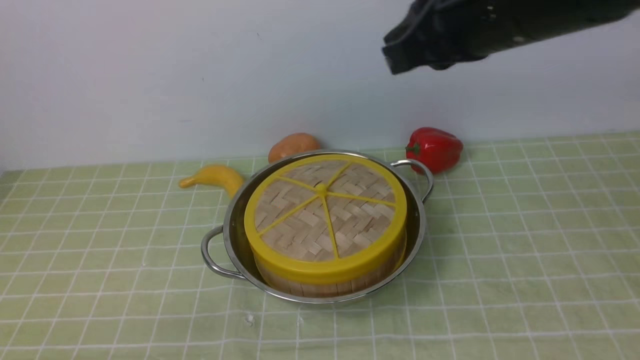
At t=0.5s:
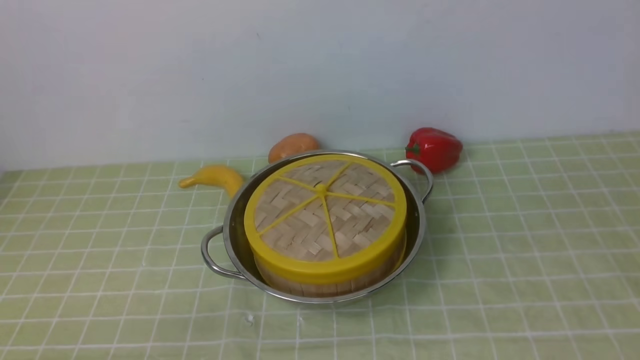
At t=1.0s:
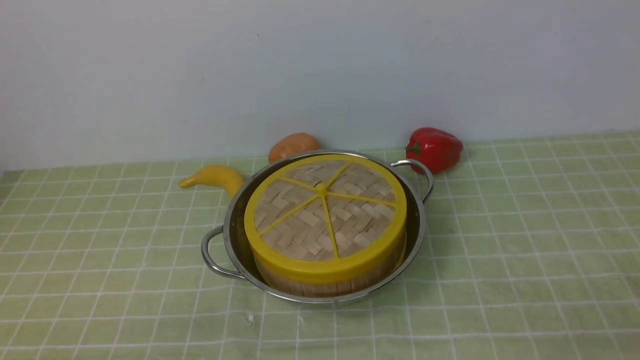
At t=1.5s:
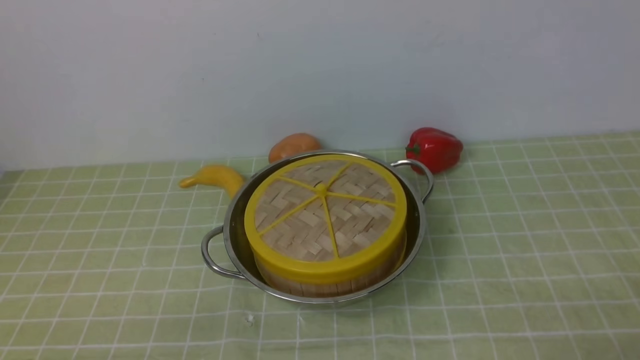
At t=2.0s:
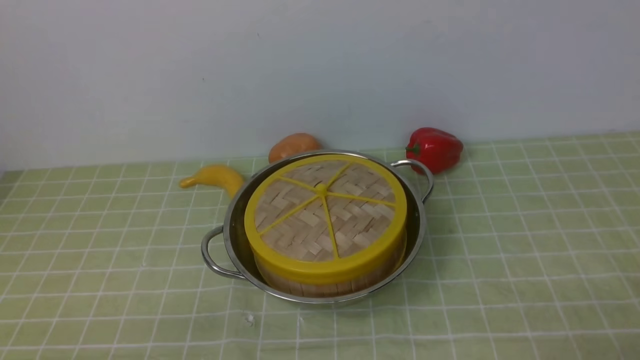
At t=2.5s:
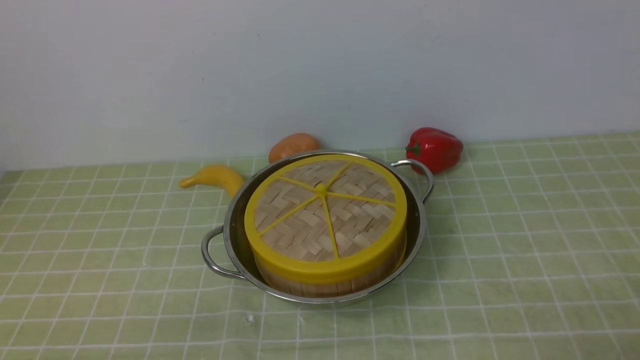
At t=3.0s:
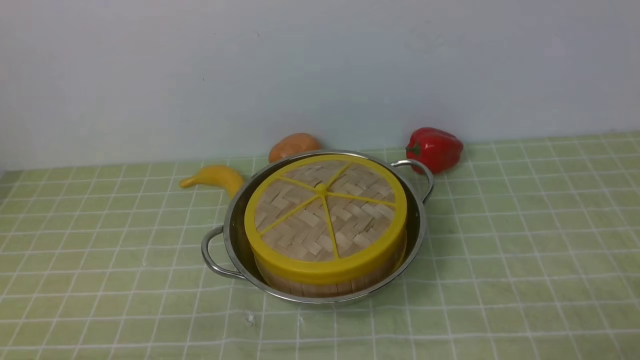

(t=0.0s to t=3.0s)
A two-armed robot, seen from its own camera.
Task of the whole recording: place the steamer in the pot on the green tablecloth, and put the lid on the steamer.
t=0.0s - t=1.5s: The right gripper travels downward, backward and to the right by about 35 cm, and opens up.
t=1.5s - t=3.0s: The two grippers keep their place.

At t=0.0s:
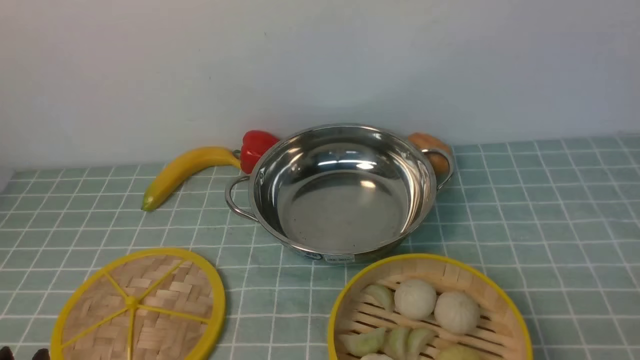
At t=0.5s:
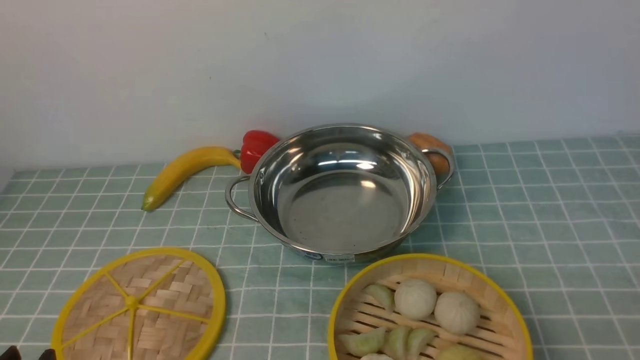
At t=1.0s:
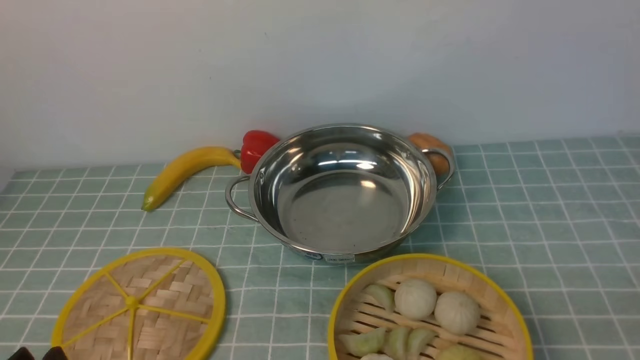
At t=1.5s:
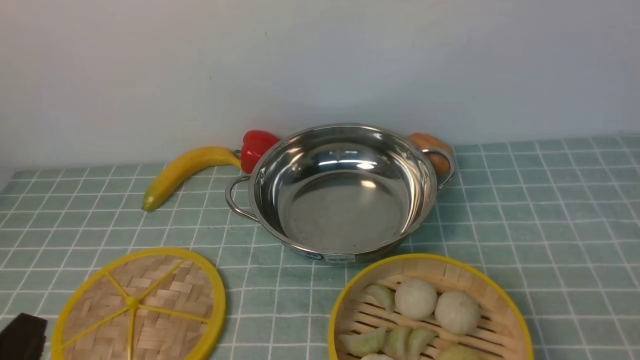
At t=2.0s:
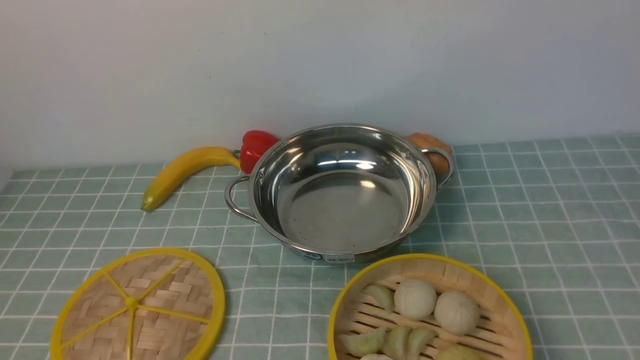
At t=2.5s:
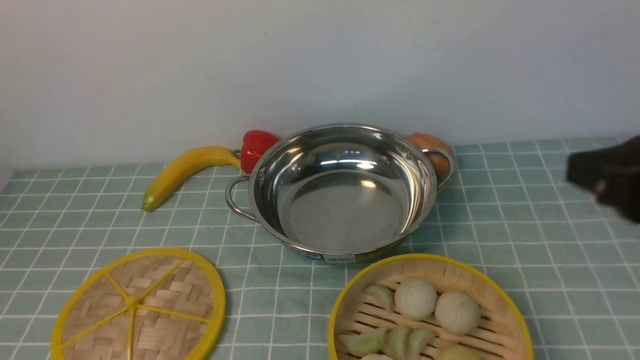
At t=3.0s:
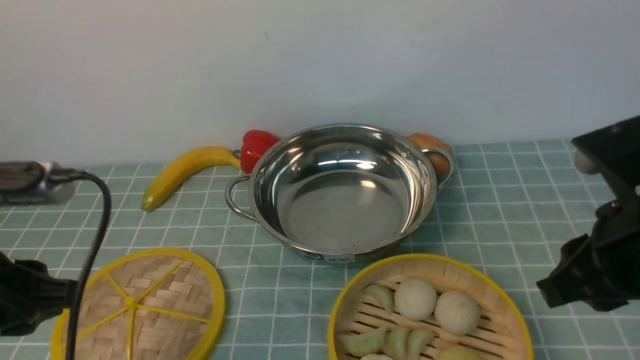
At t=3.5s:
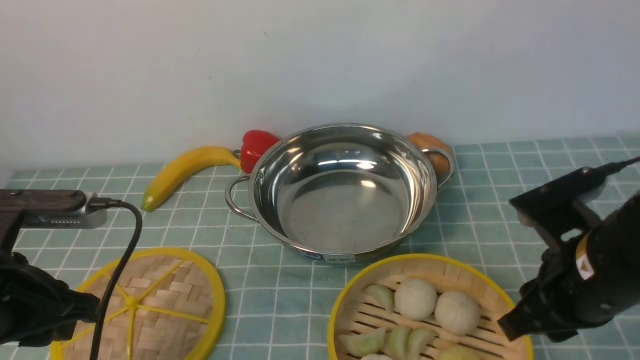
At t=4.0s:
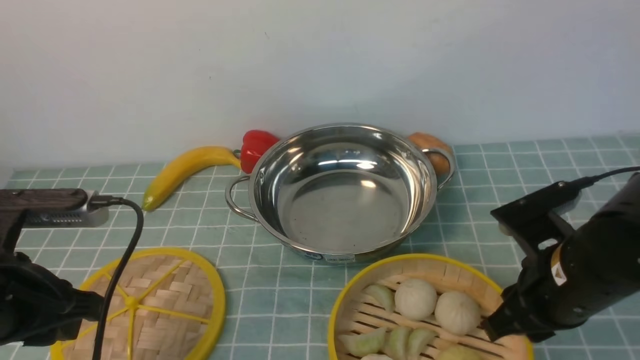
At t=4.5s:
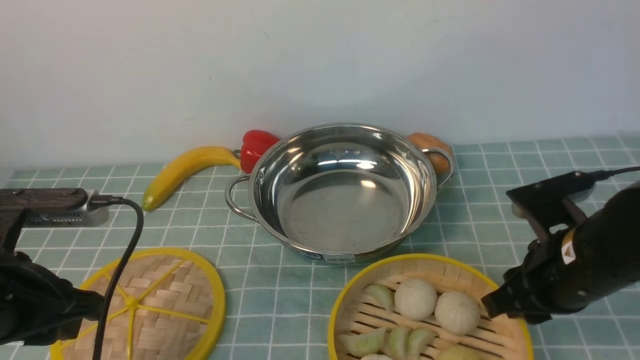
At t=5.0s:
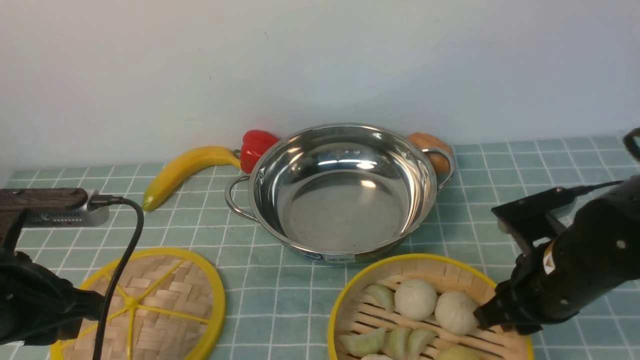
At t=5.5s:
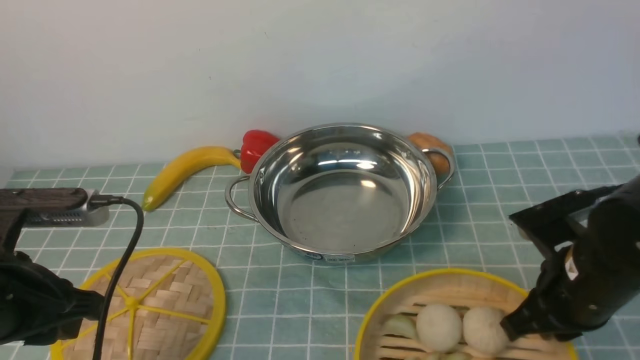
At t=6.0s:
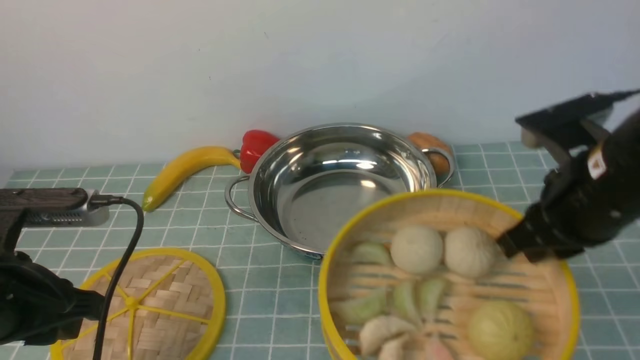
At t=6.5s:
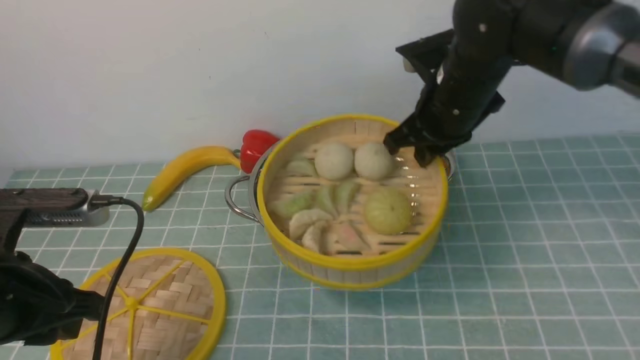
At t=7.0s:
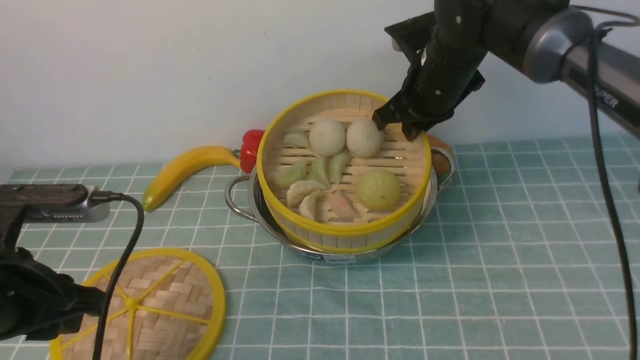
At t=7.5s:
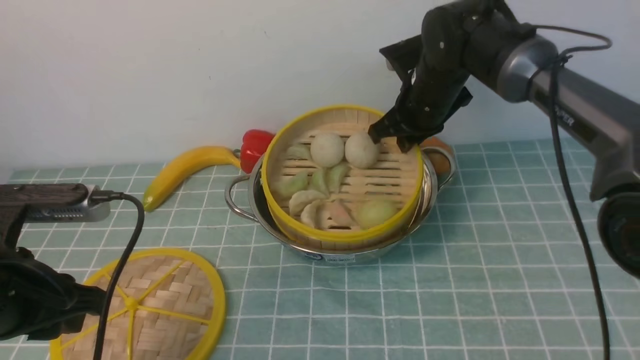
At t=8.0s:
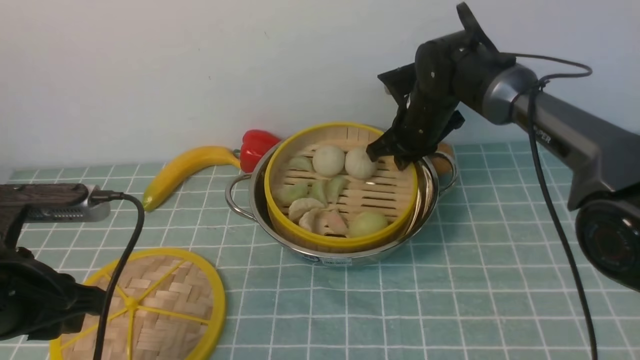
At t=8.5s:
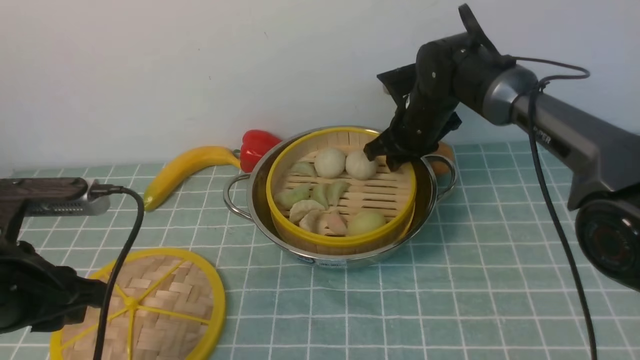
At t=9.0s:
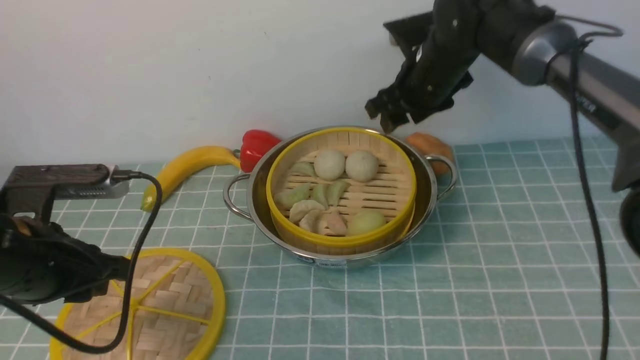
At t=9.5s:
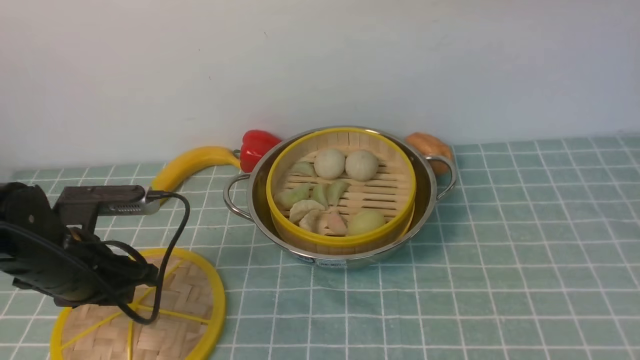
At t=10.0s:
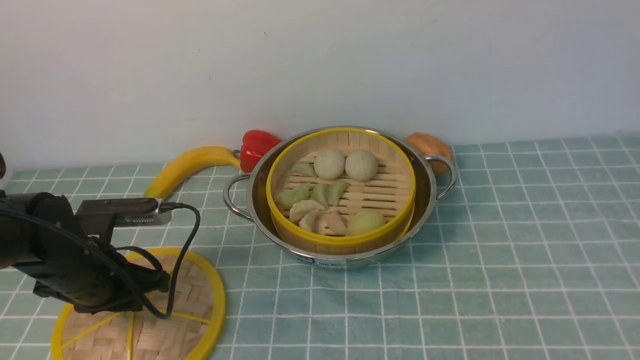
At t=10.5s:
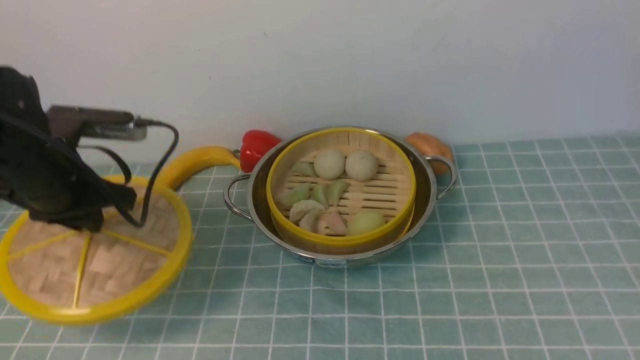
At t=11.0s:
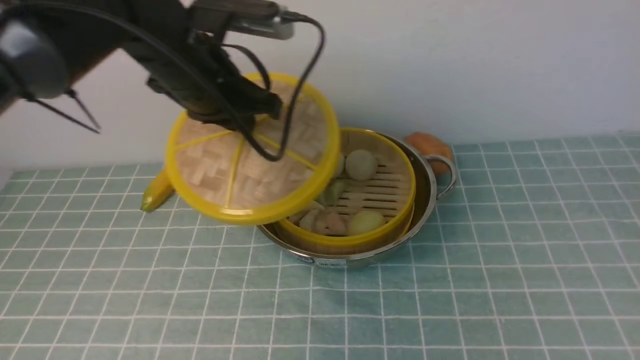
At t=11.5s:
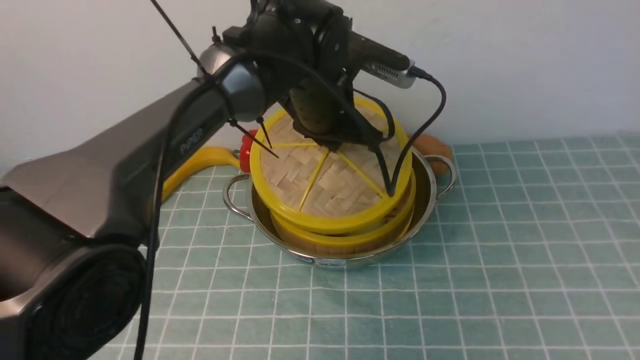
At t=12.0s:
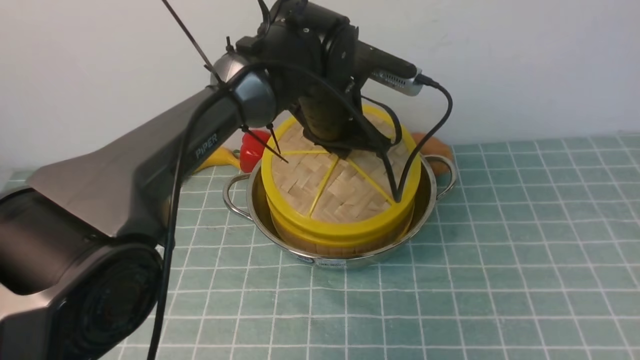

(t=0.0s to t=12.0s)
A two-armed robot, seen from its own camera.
Task of the whole recording: place the steamer in the pot on the blue tablecloth, and put the lid on the steamer.
Step, t=0.0s - t=5.5s: use the right arm to lift the steamer closest to it.
Step, t=6.0s - t=9.0s: use the right arm to put the steamer into the iron steamer pot in the middle.
Step, t=9.5s - t=10.5s: use the left arm to lift the lid of the steamer.
t=2.0s - t=4.0s: The right gripper goes some 25 cm downward, forward and to the left, while the left gripper shifts approximately 15 cm forward.
t=4.0s - t=6.0s: The right gripper goes approximately 10 cm upward, and closes up.
t=6.0s - t=8.0s: The right gripper goes approximately 25 cm forward and downward.
t=8.0s - t=10.0s: The left gripper shifts approximately 15 cm downward and forward. Meanwhile the right gripper moves upward and backward, some 60 cm, and opens.
t=10.0s - t=12.0s: The right gripper is displaced downward by roughly 15 cm, while the left gripper travels to the right and forward by about 30 cm.

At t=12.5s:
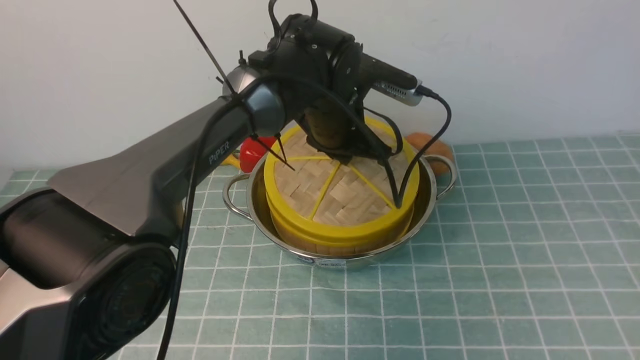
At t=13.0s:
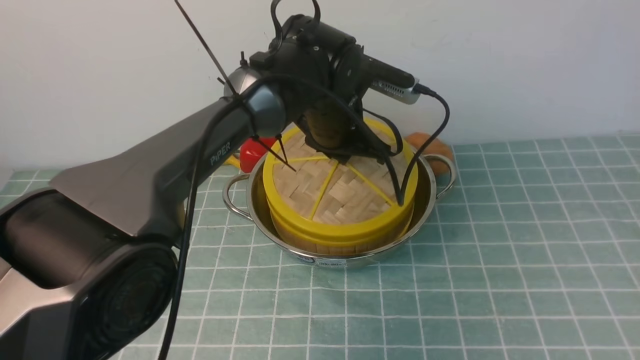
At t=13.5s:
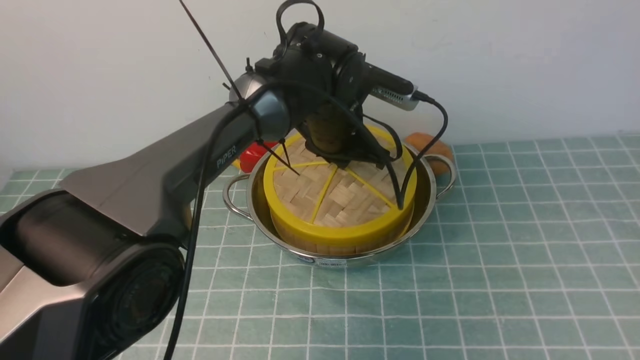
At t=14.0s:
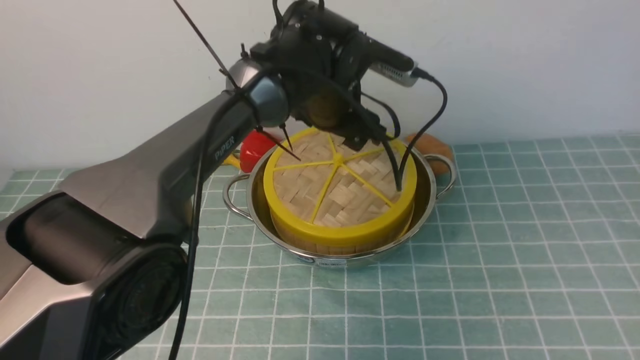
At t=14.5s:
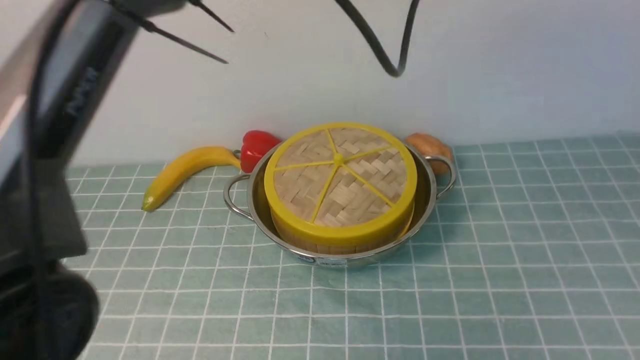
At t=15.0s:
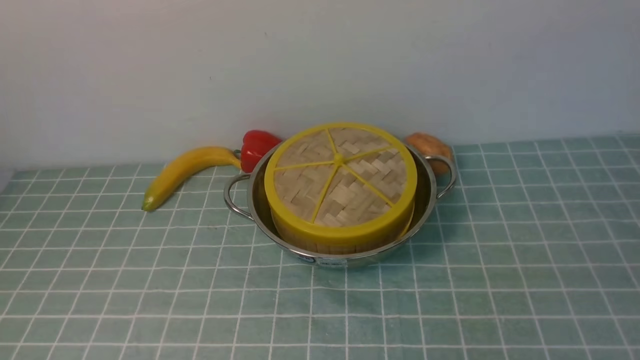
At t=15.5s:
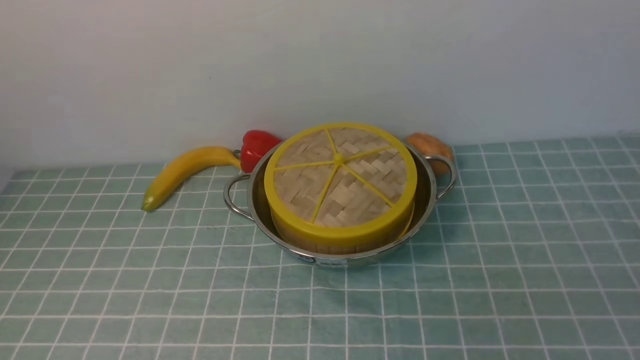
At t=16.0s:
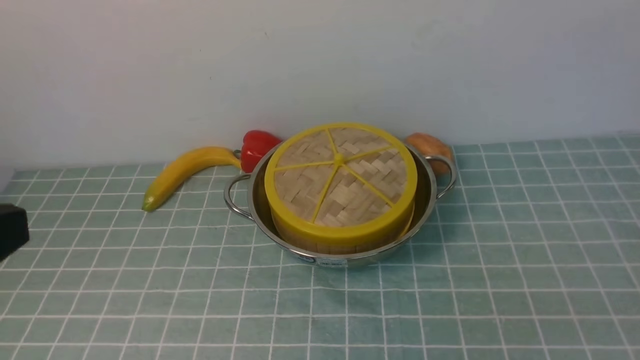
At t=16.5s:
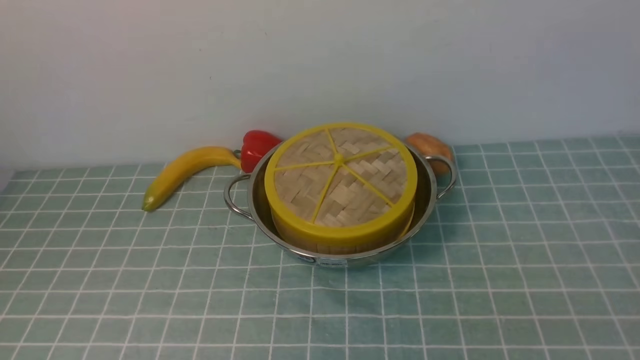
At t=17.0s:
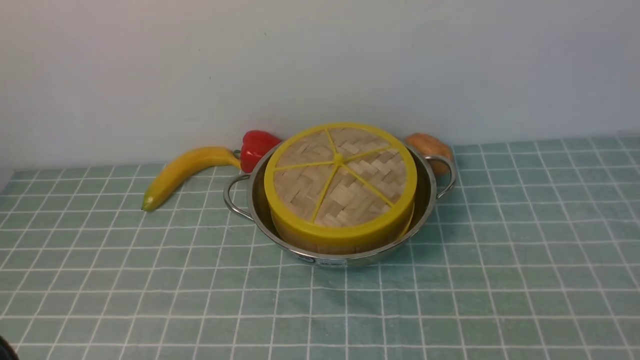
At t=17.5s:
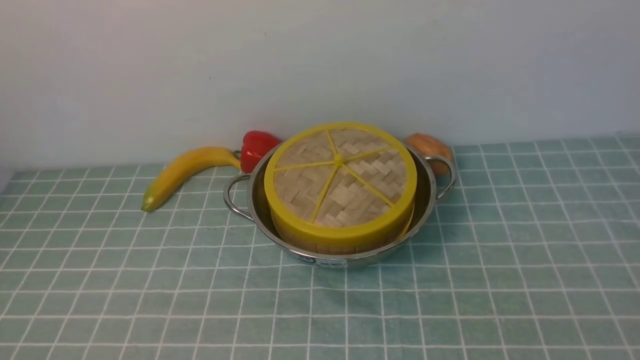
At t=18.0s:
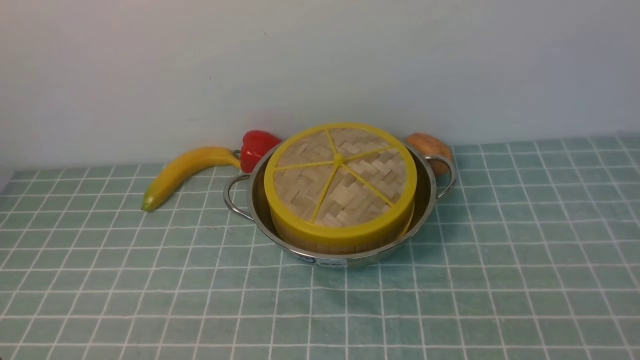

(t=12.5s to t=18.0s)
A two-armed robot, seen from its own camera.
Task of the whole recording: place the steamer in the pot on the blue tablecloth, and put the lid on the steamer.
t=12.5s - t=14.5s: The left gripper moves upward, some 25 cm, and opens, then closes once more.
t=14.5s - t=16.0s: The right gripper travels downward by some 15 cm, and closes up, while the left gripper is displaced backward and to the left by about 35 cm, and closes its fingers.
